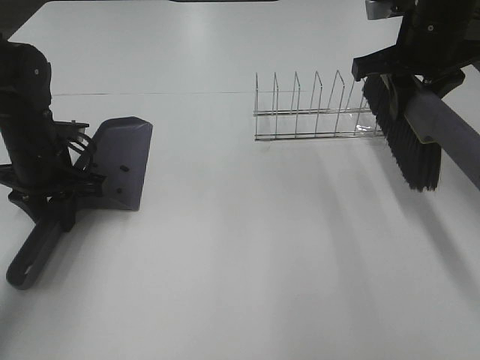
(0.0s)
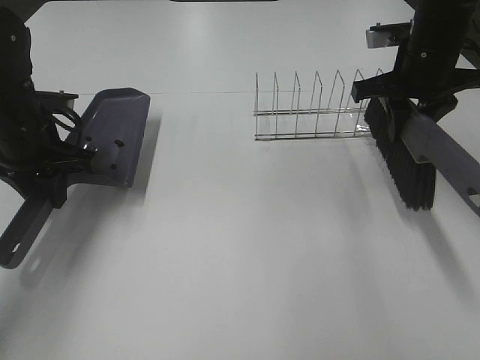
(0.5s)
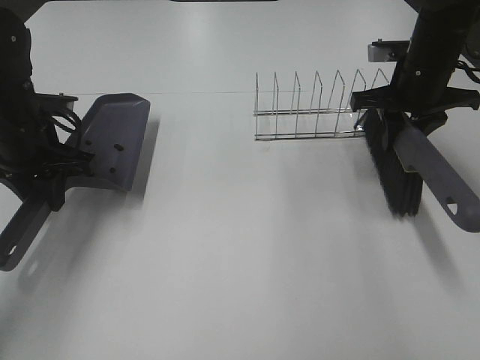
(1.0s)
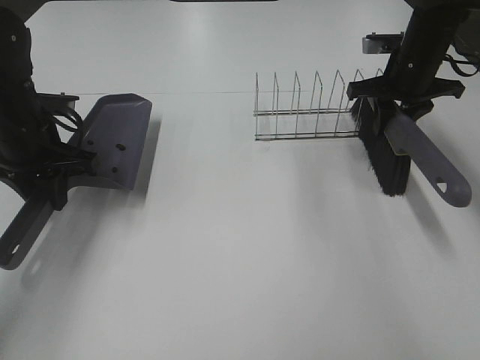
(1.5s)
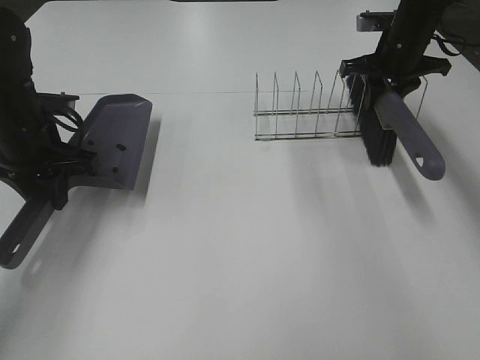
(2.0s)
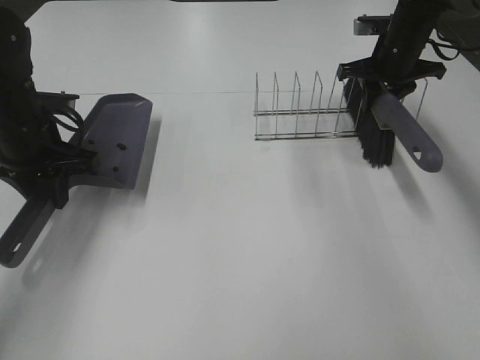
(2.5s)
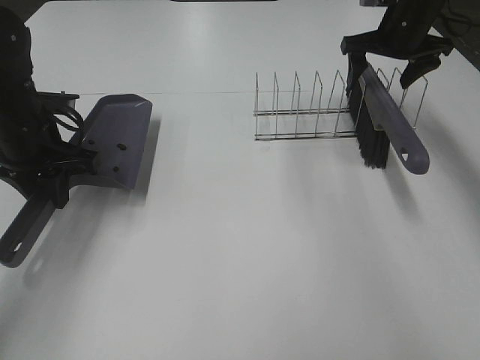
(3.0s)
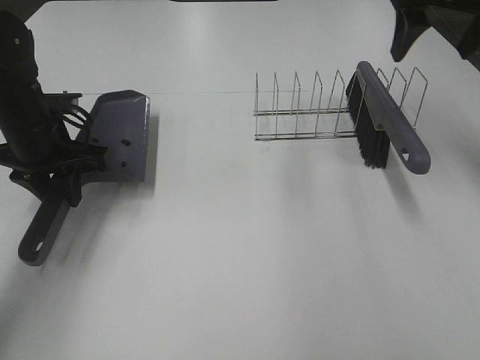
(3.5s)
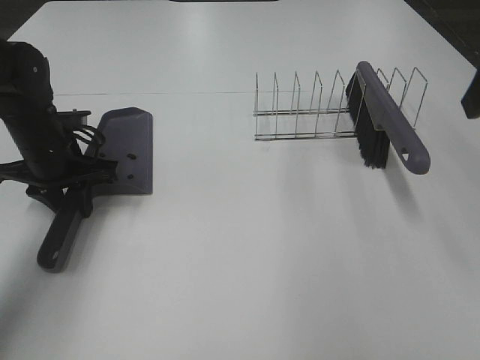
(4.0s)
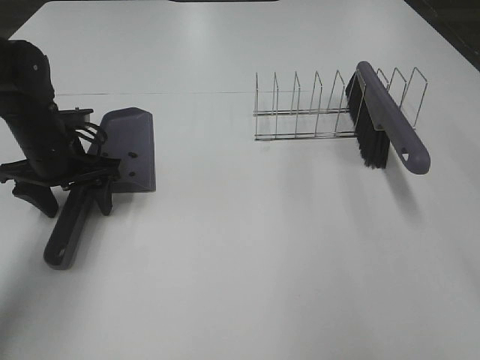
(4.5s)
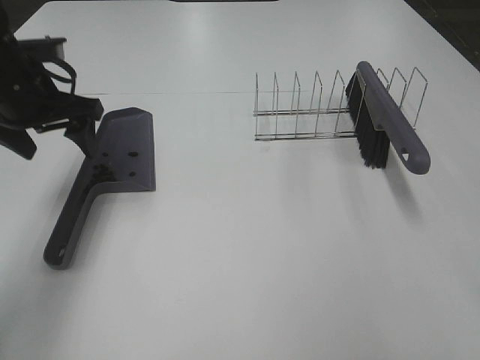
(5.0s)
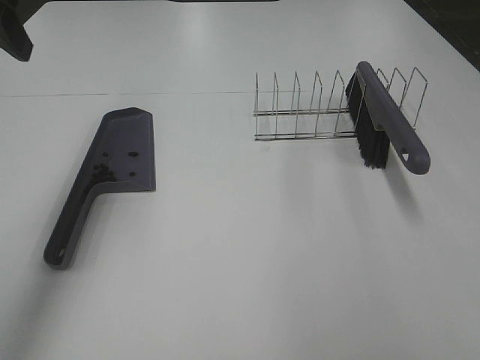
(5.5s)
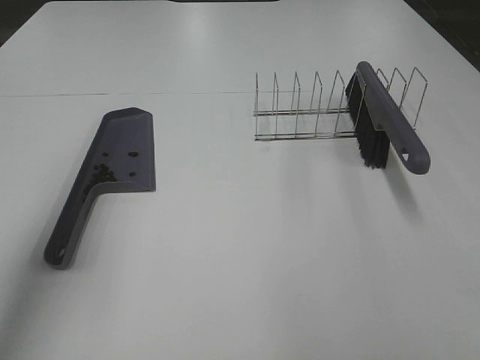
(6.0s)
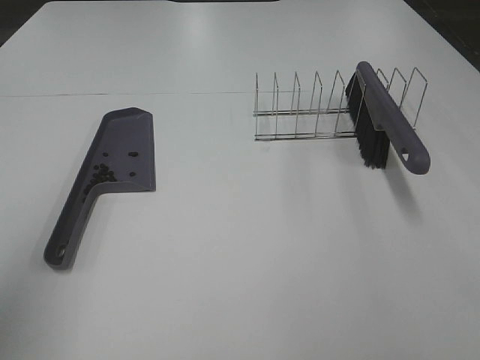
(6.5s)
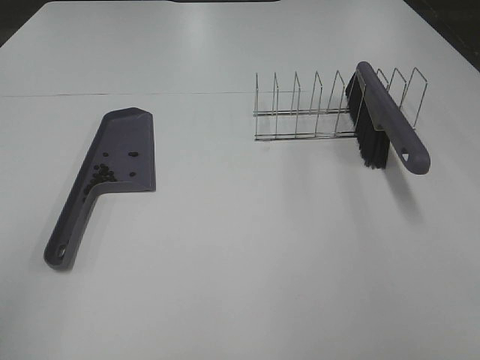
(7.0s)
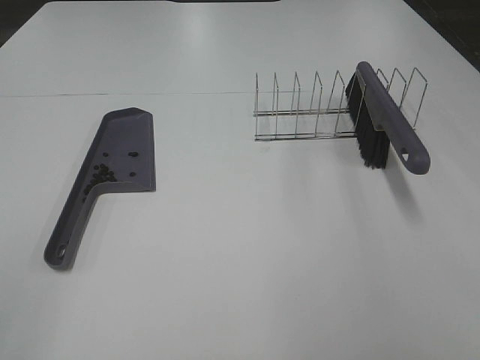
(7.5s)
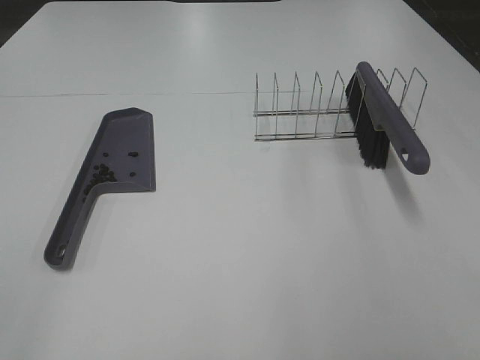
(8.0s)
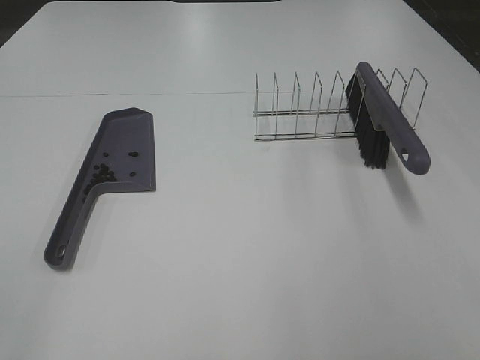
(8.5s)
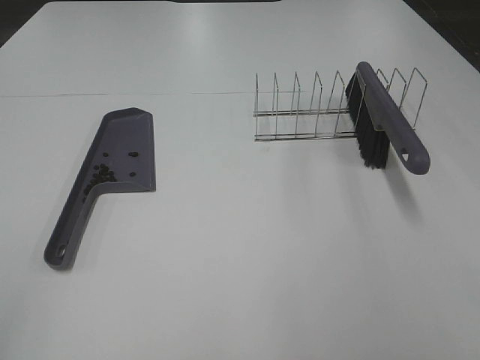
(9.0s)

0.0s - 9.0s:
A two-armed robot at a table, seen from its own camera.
Task of the whole recording: Sweep Coffee Bean.
Step, 0.0s - 2.5s: Right hand:place the broom on the rack.
0.0s - 2.0s: The right gripper moves forward and downward, approximately 15 cm.
2.0s - 4.5s: The right gripper goes approximately 40 cm backward and upward, and opens; the left gripper opens.
4.5s - 7.0s: The left gripper shifts some 35 cm backward and upward.
